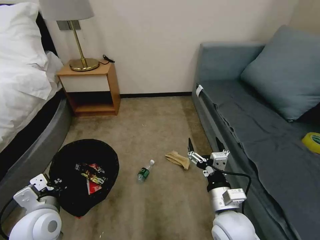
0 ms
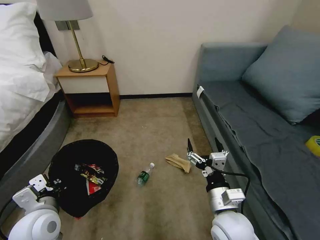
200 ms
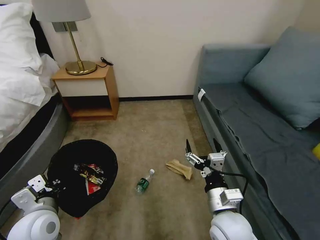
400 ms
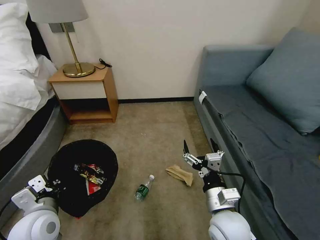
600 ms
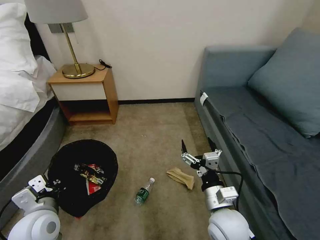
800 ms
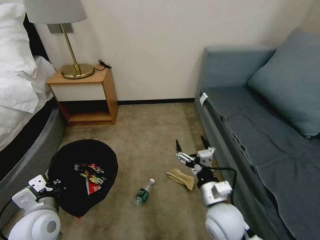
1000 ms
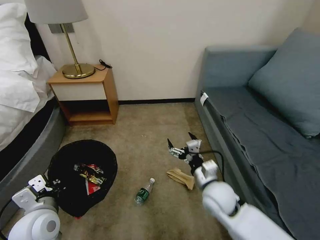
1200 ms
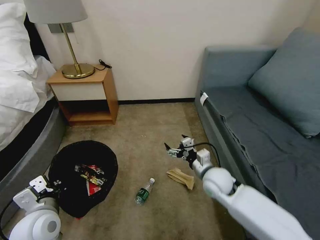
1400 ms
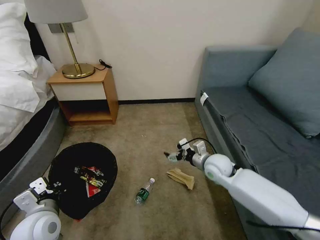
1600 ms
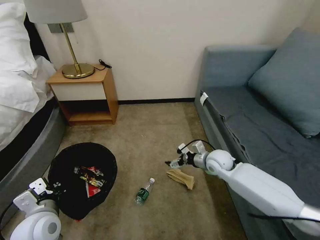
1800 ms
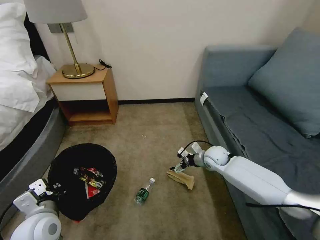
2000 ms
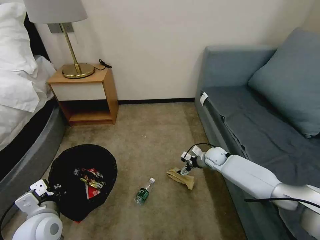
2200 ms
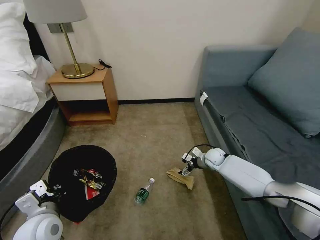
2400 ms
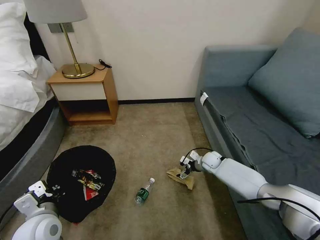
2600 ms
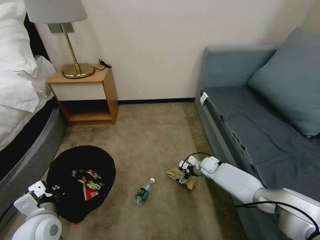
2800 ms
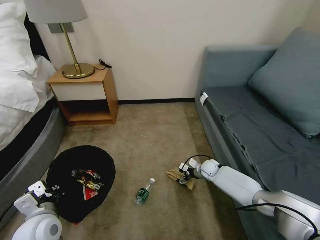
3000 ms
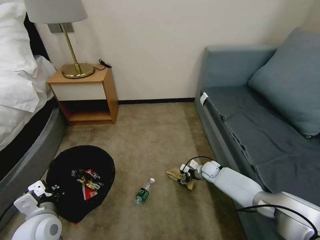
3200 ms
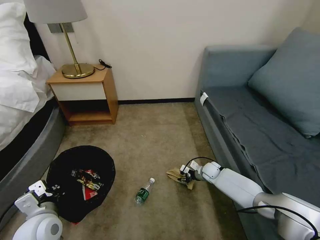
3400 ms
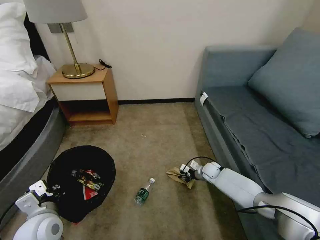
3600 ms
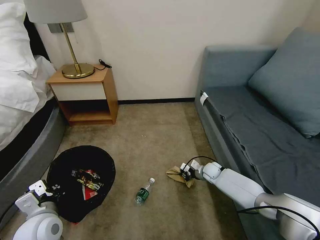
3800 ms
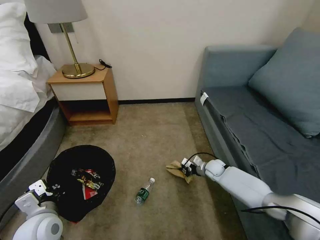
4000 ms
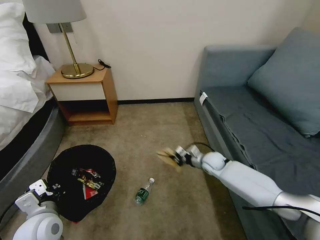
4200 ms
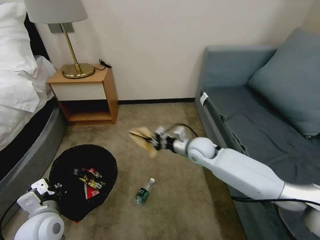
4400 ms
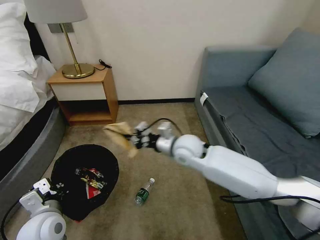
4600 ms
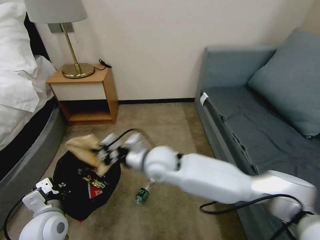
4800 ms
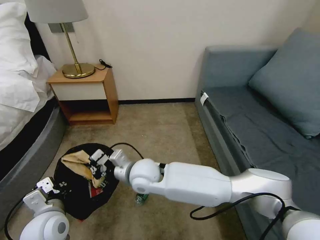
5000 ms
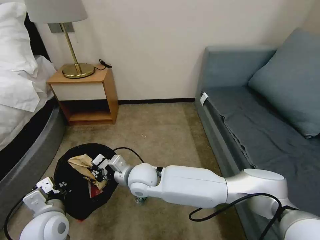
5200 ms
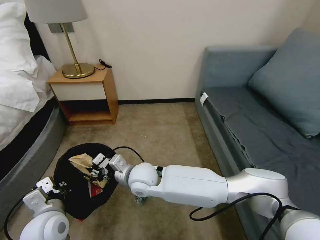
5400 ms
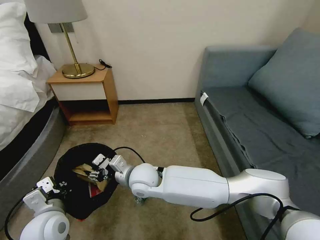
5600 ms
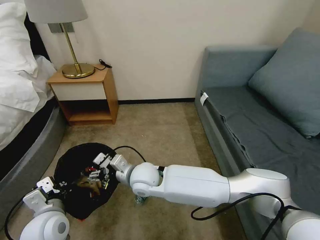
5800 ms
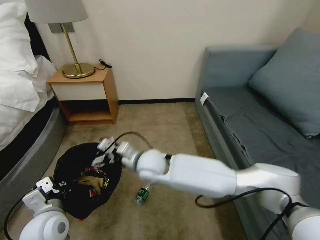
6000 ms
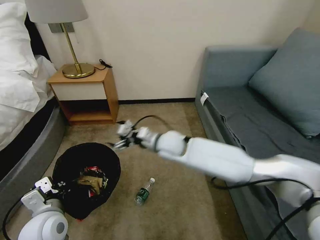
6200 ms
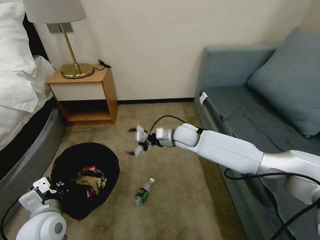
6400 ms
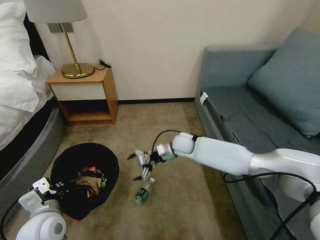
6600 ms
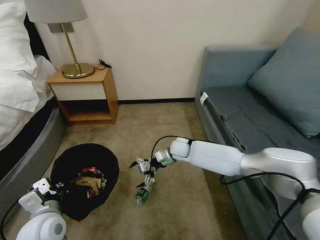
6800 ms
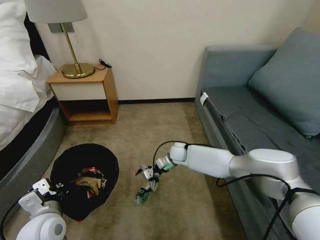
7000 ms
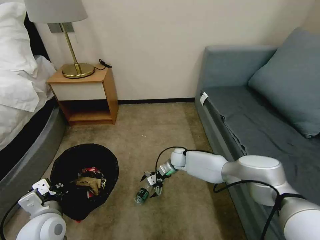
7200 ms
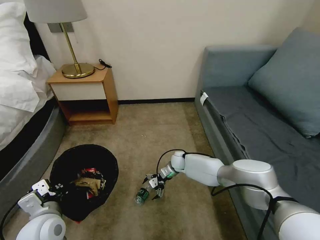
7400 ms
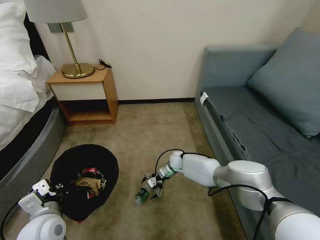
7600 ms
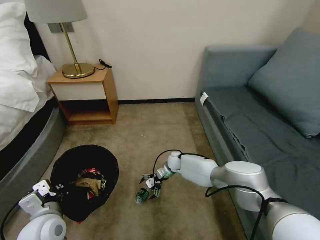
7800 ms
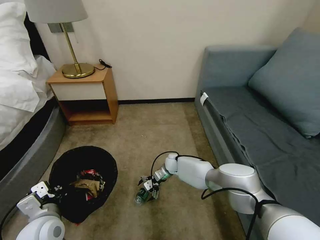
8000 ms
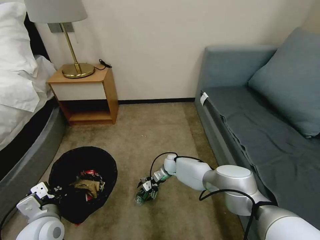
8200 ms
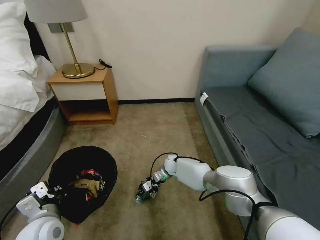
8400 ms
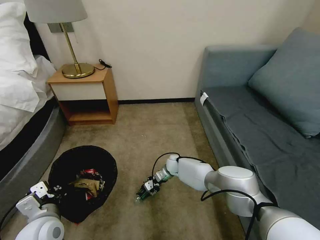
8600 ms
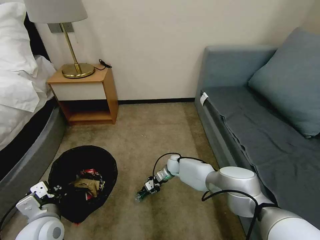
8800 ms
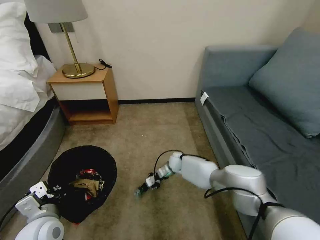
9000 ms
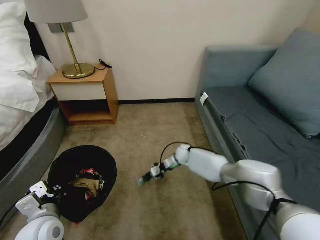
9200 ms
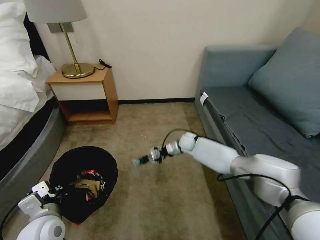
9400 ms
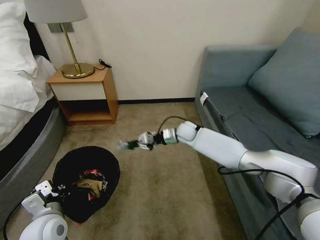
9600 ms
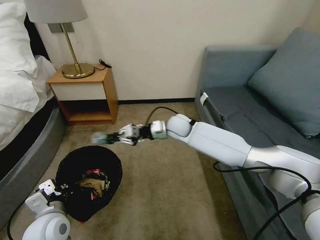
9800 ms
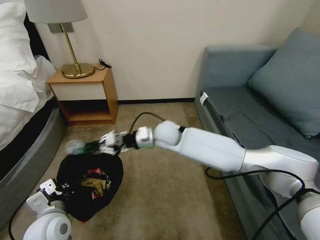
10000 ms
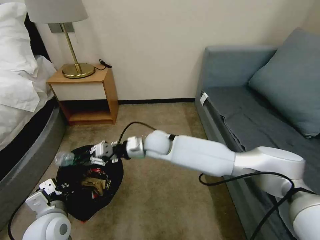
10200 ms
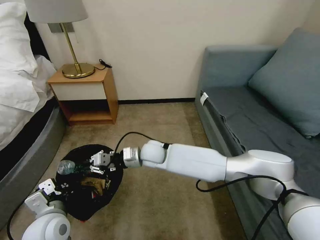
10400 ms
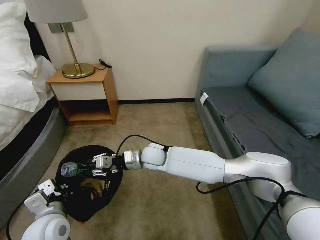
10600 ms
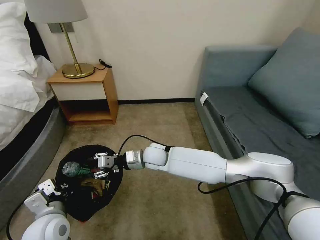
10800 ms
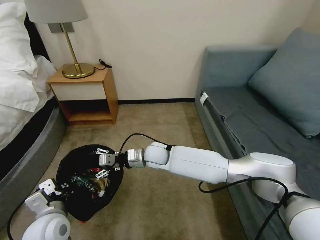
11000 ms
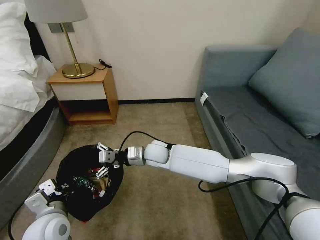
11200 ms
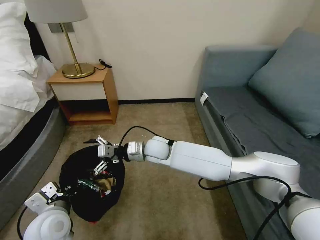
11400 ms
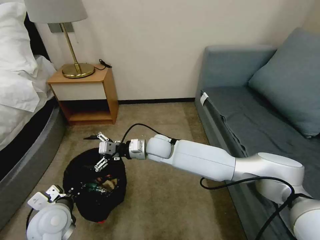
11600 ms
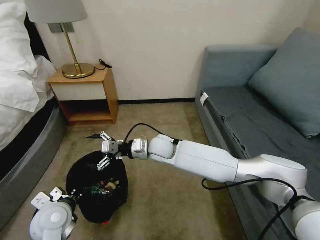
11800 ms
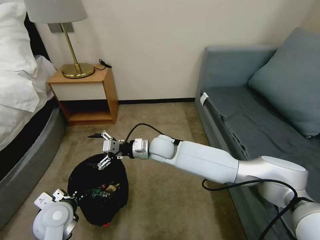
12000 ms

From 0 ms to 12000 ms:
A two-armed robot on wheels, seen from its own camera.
Task of the whole recording: Pick up the trash bin, then pick up the garbage on the floor and place it into the trash bin.
From 0 ms to 1600 ms: The right gripper heads forward, covering about 20 cm.
From 1600 ms to 3000 ms: The right gripper is displaced downward and forward by roughly 20 cm.
From 3000 ms to 4400 ms: The right gripper moves upward and to the left, about 20 cm, and closes up.
From 4400 ms to 6000 ms: The right gripper is displaced to the left and backward by roughly 25 cm, and opens up.
From 6000 ms to 7600 ms: The right gripper goes roughly 30 cm downward, forward and to the right.
From 7600 ms to 9000 ms: The right gripper closes.
From 9000 ms to 10400 ms: The right gripper shifts roughly 25 cm upward, to the left and backward.
From 10400 ms to 12000 ms: The left gripper shifts by roughly 5 cm; the right gripper opens up.

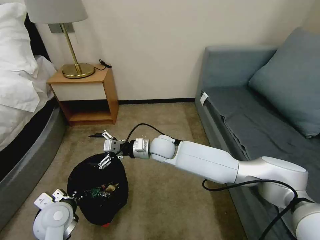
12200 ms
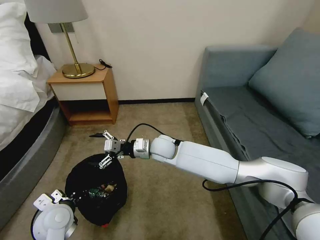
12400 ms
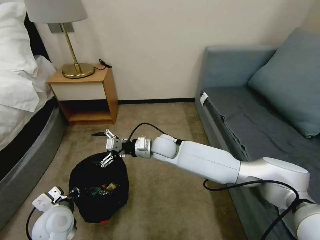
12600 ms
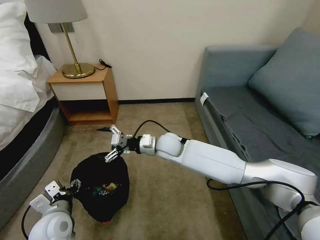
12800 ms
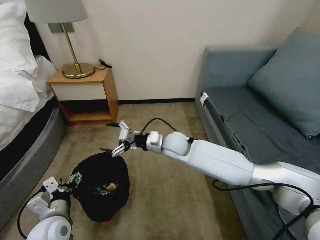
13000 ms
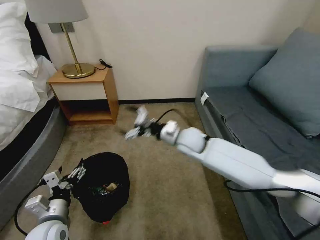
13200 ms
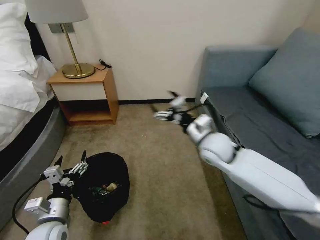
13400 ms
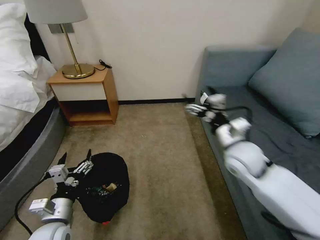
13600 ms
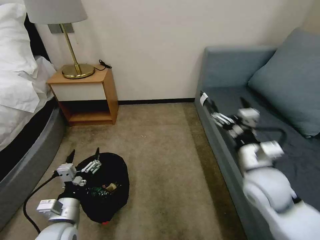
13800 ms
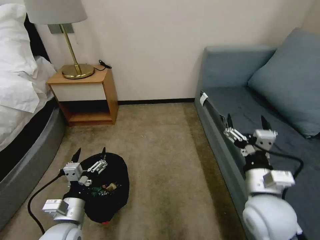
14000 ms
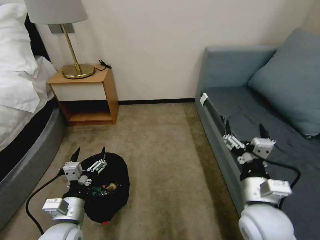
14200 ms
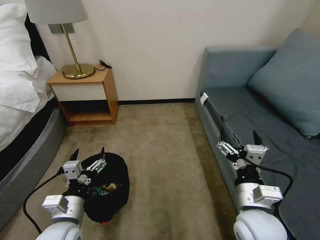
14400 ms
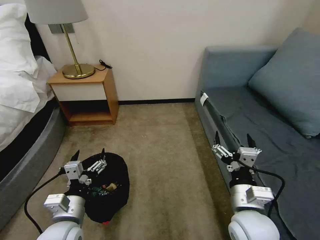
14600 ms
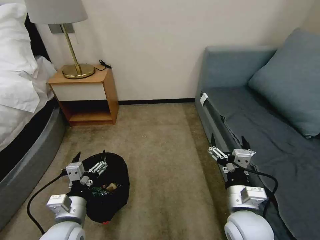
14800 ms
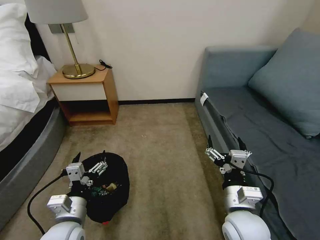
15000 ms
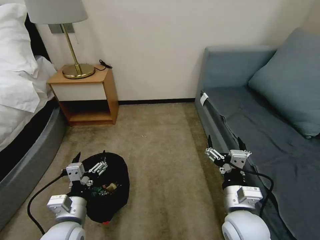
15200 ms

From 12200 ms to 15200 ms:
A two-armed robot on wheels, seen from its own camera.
Task of the whole recording: Pick up the trash bin, then pick up the garbage on the floor and place it into the trash bin.
From 12200 ms to 13800 ms: The left gripper travels backward by approximately 5 cm, and opens its fingers; the right gripper shifts approximately 30 cm to the right and backward.
From 13800 ms to 15200 ms: The right gripper travels backward, downward and to the left by roughly 10 cm.

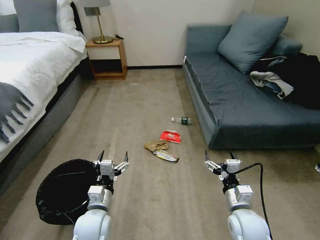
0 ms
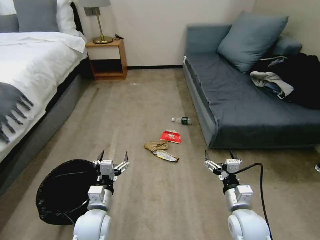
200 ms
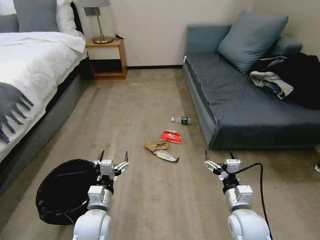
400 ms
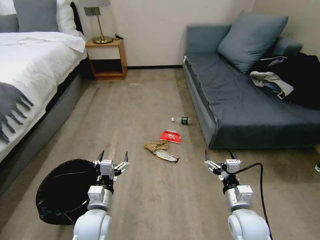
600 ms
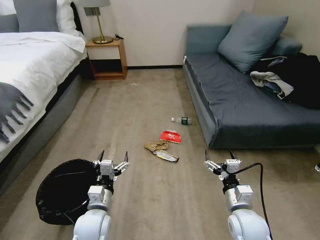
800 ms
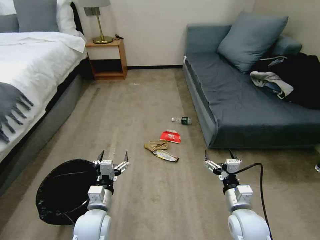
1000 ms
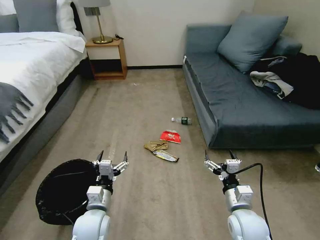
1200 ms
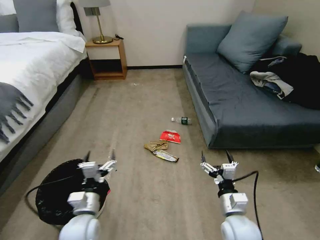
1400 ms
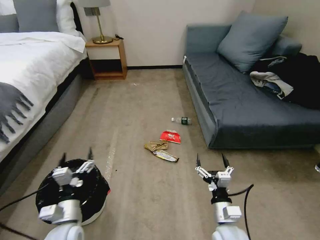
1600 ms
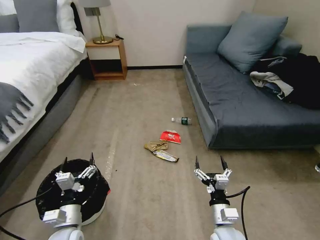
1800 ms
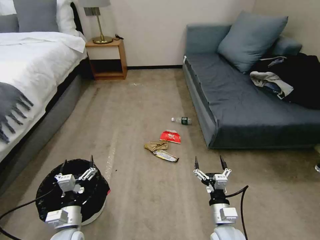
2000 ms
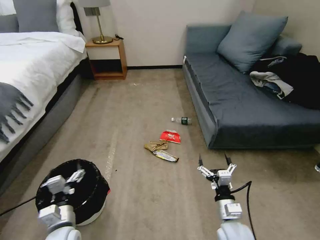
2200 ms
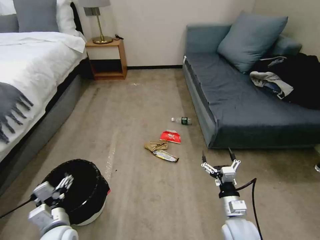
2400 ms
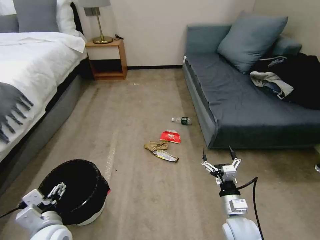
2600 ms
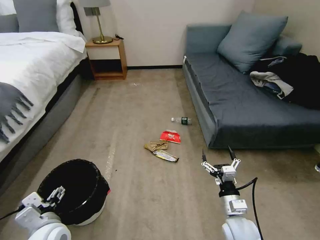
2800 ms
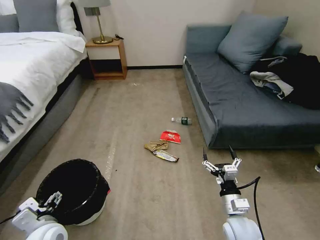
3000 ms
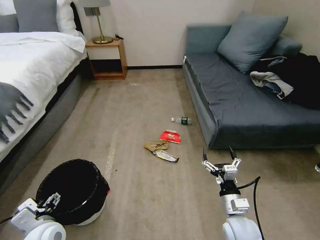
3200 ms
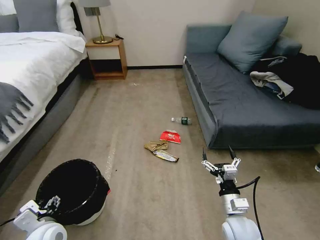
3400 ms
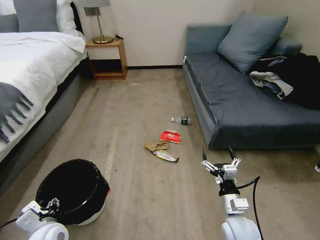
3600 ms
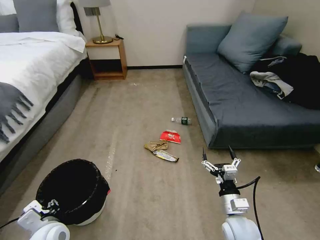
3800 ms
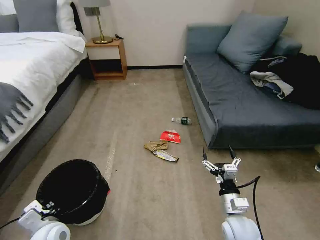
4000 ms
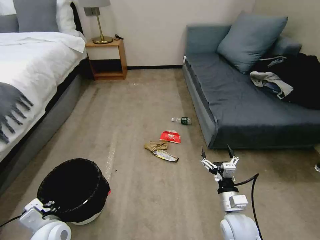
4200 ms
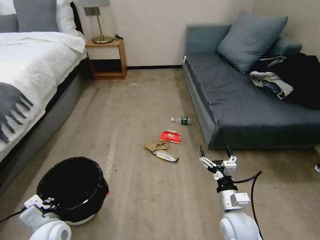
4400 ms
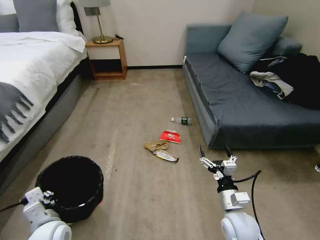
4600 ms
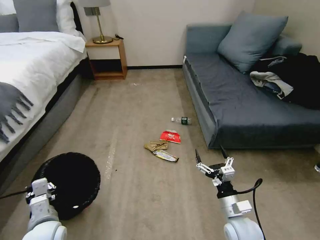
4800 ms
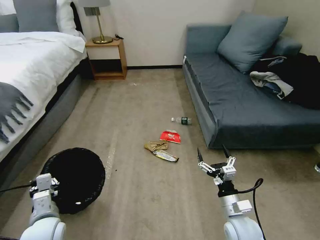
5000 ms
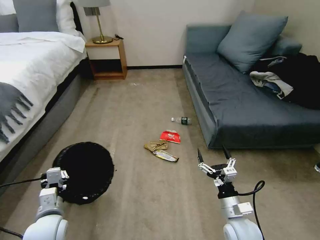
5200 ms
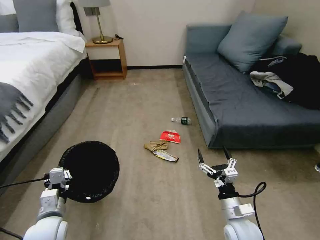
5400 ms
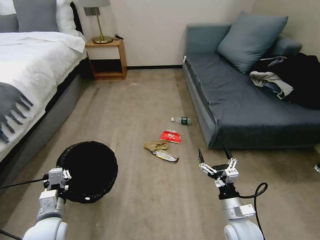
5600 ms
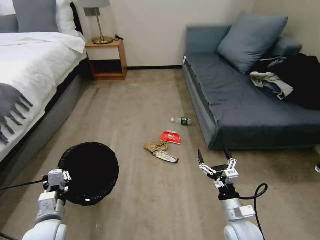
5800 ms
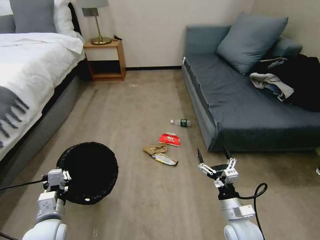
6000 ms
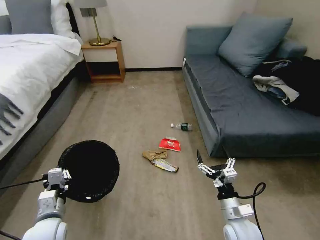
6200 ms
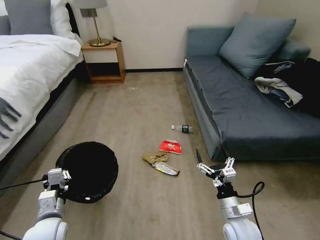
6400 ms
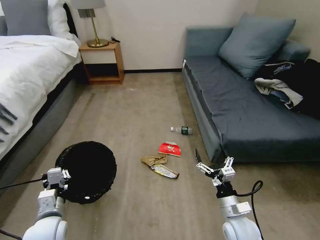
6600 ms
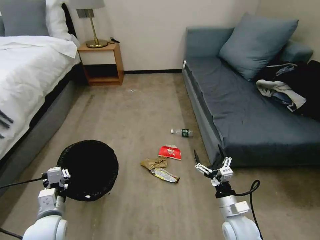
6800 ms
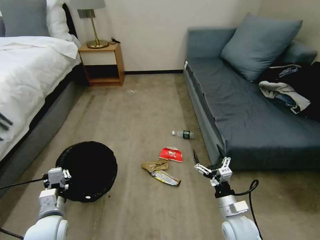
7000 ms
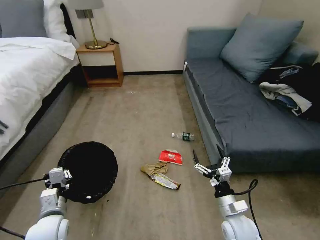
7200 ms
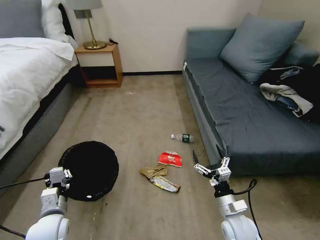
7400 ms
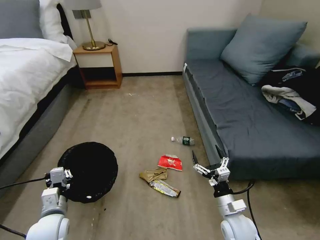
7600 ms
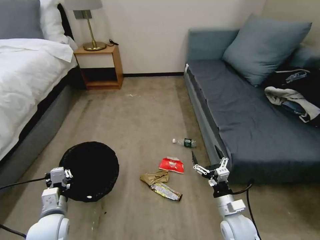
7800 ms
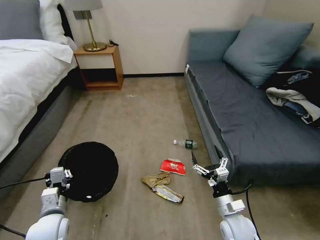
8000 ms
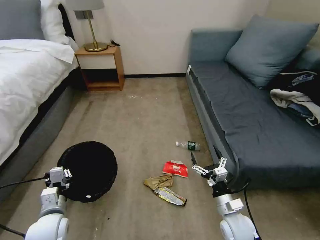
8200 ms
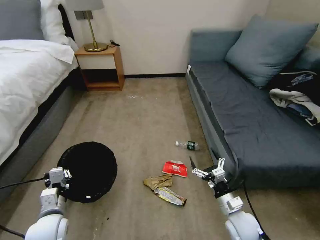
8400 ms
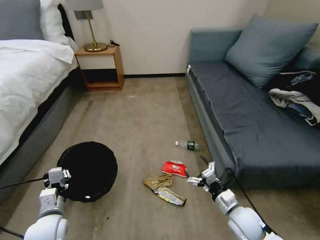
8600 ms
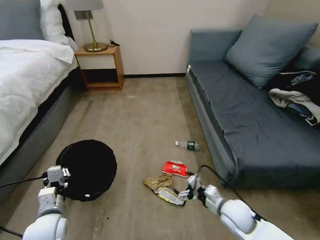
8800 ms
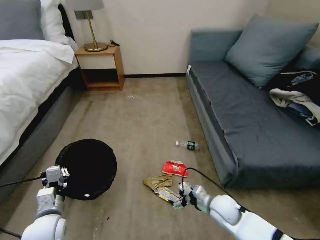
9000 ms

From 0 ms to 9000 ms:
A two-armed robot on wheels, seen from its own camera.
Task of the whole recording: Pick up the trash bin, then pick up the garbage on the floor and place it into the trash bin.
From 1600 ms to 3000 ms: The left gripper moves roughly 5 cm.
From 3000 ms to 4400 ms: The left gripper closes up.
From 7600 ms to 9000 ms: The right gripper goes some 5 cm forward.
